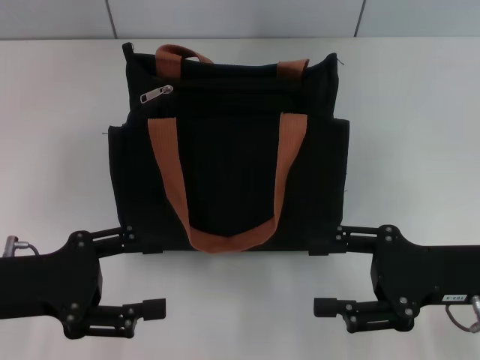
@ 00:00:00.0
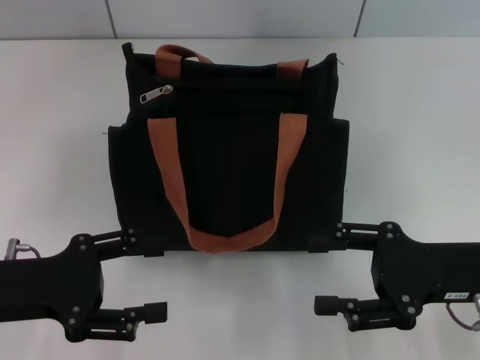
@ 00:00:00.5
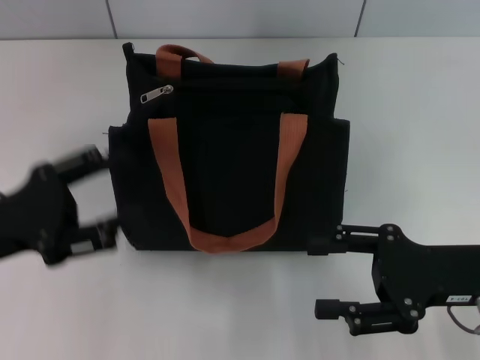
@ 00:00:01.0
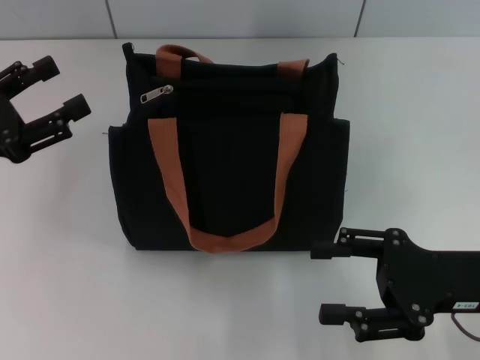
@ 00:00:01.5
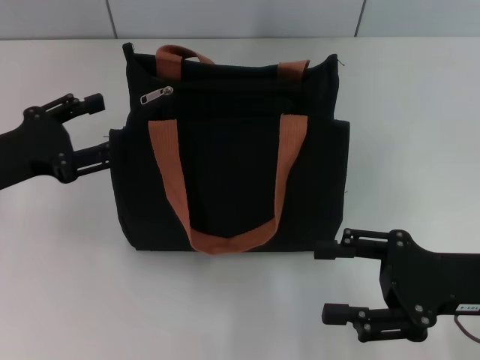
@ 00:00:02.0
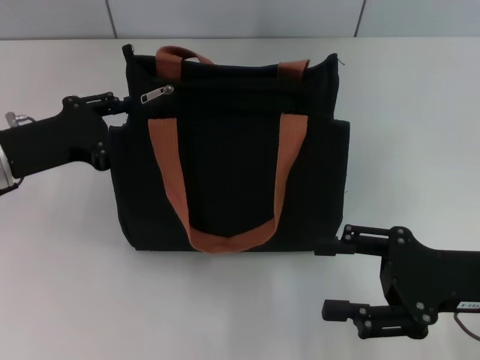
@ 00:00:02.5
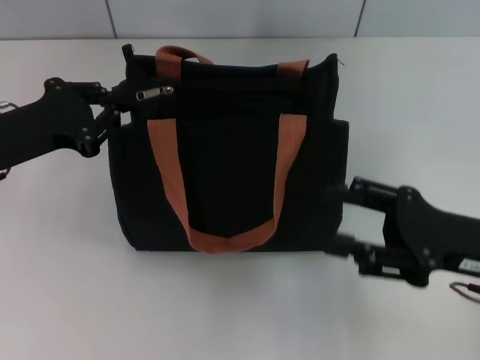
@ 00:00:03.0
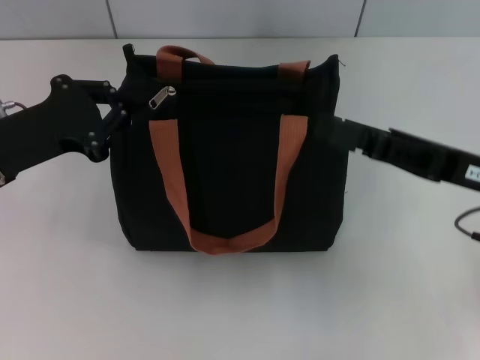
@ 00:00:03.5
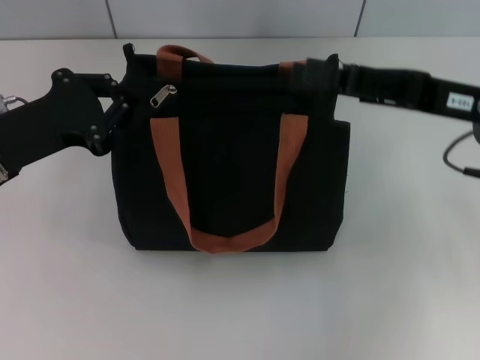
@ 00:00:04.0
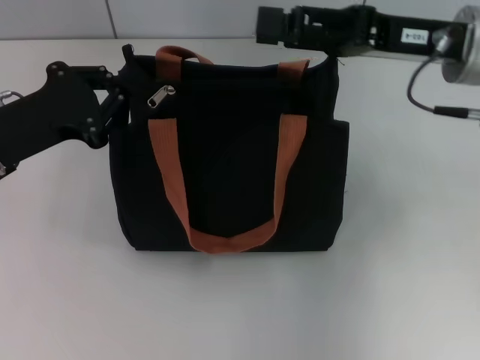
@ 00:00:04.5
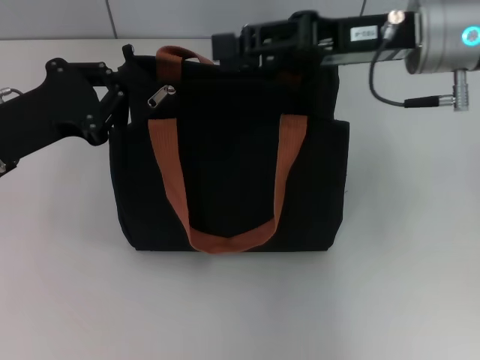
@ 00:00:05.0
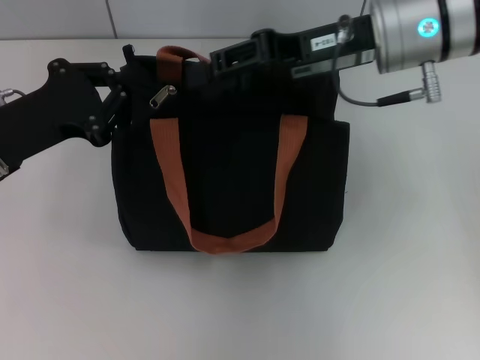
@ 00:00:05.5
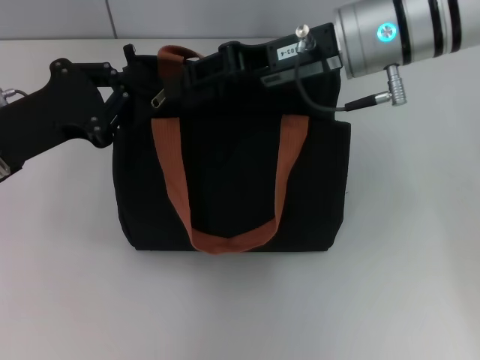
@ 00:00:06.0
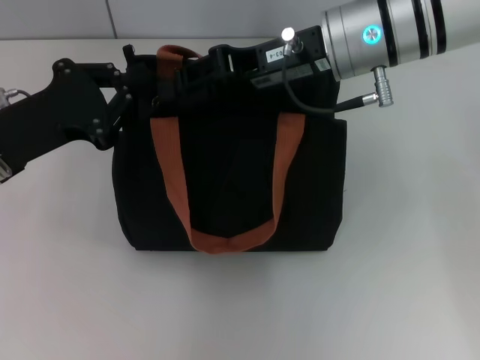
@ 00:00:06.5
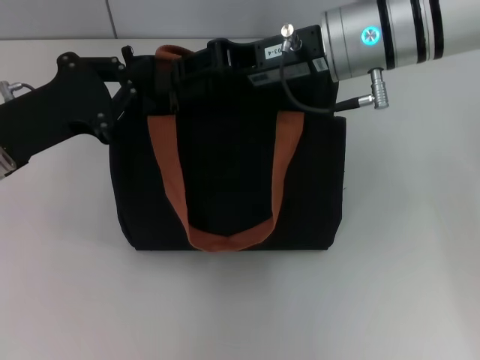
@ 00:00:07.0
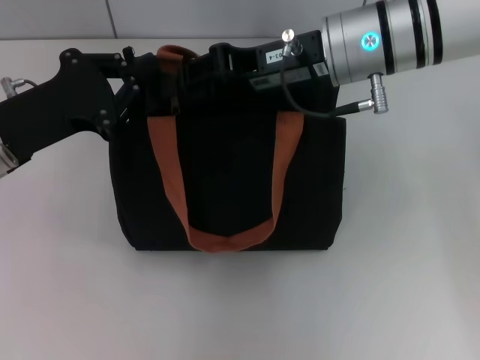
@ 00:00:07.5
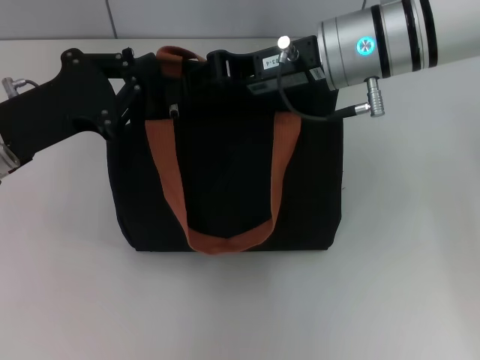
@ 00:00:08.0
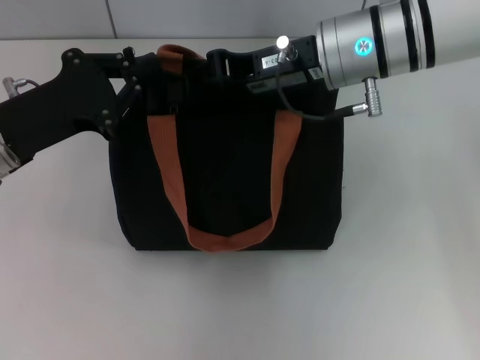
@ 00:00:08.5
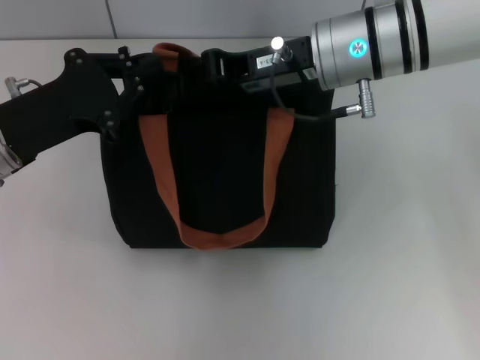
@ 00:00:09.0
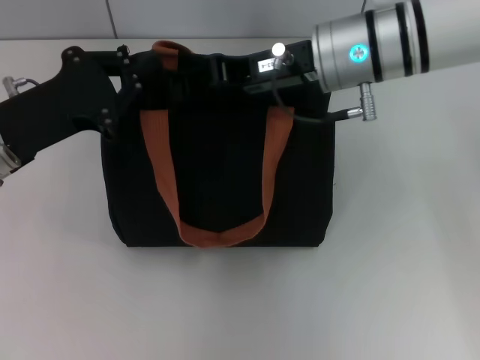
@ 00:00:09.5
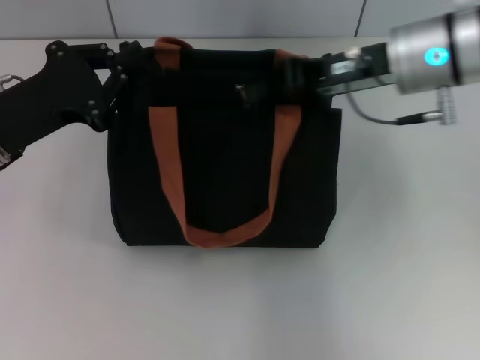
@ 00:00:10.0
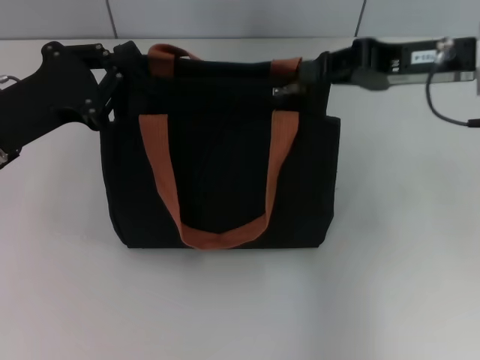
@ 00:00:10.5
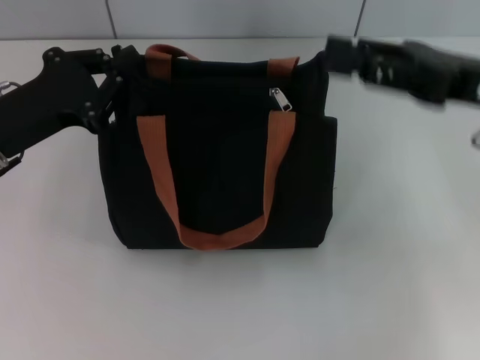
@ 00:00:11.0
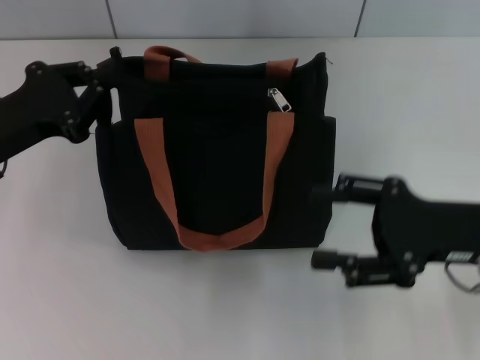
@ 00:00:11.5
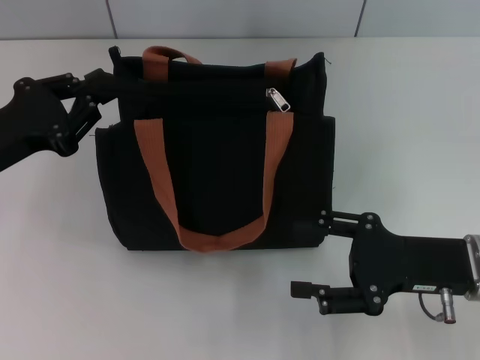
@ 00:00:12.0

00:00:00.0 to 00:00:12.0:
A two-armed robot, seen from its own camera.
Step, 00:00:00.0 to 00:00:10.5: Pull up the zipper with your right hand.
00:00:00.0 to 00:00:02.0: The left gripper moves forward, roughly 5 cm.
00:00:02.0 to 00:00:04.0: The right gripper is displaced forward and upward by approximately 15 cm; the left gripper closes up.
00:00:04.0 to 00:00:06.0: The right gripper moves to the left and forward, about 15 cm, and closes up.
00:00:06.0 to 00:00:08.0: The grippers stay close to where they were, moving slightly.
00:00:08.0 to 00:00:10.0: The right gripper is displaced to the right by roughly 5 cm.
00:00:10.0 to 00:00:12.0: The right gripper goes about 20 cm backward, downward and to the right, and opens.

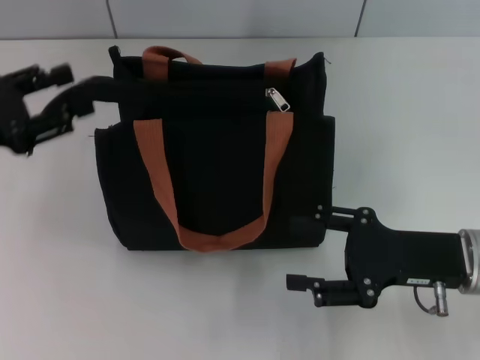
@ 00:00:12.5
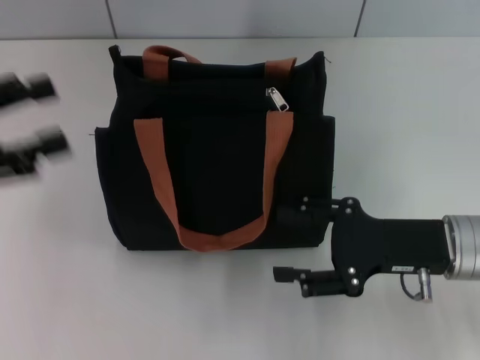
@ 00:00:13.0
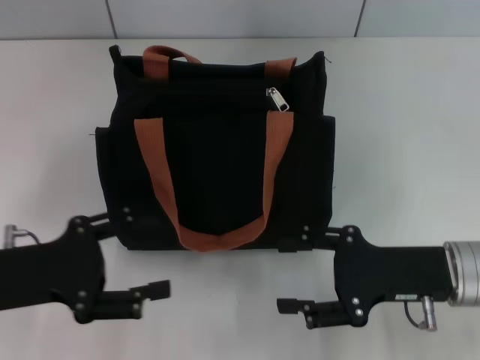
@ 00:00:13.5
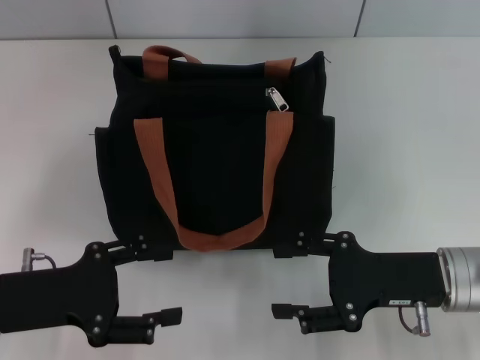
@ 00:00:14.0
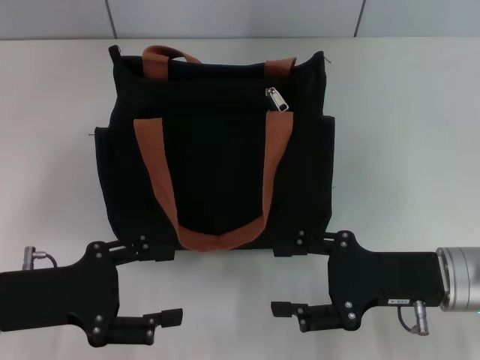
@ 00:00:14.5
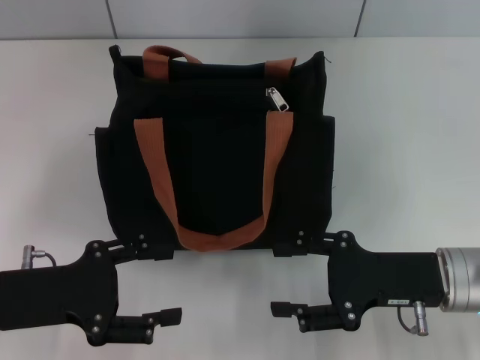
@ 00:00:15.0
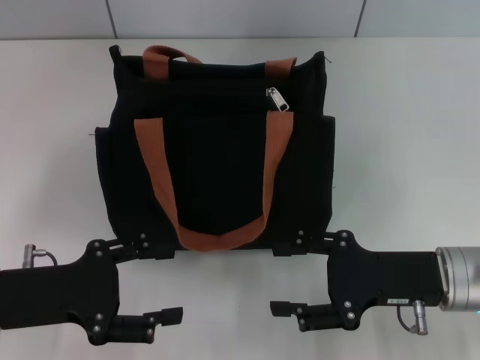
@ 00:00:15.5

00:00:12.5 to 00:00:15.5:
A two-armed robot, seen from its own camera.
00:00:12.5 to 00:00:14.0: The left gripper is displaced backward, downward and to the right by about 15 cm, and opens up.
00:00:14.0 to 00:00:15.5: Both grippers stay about where they are.

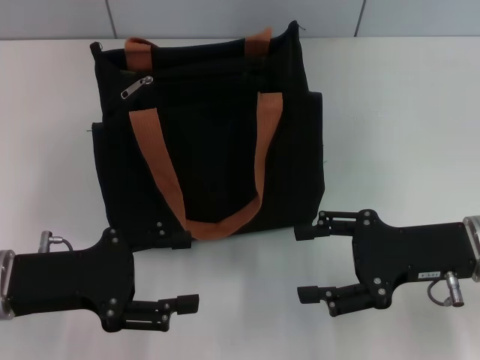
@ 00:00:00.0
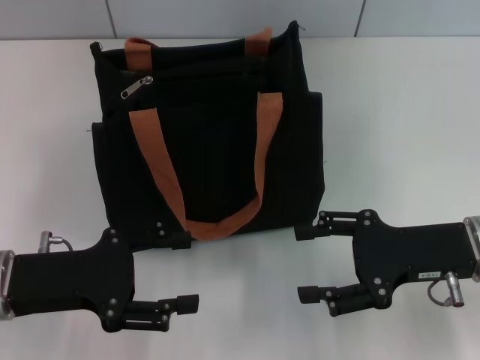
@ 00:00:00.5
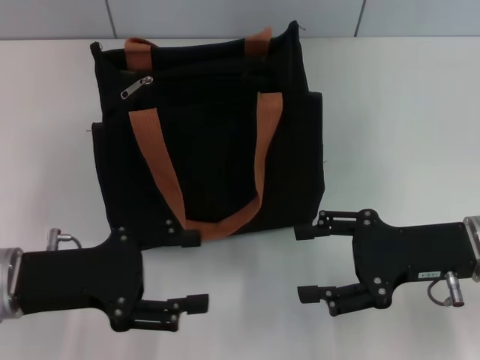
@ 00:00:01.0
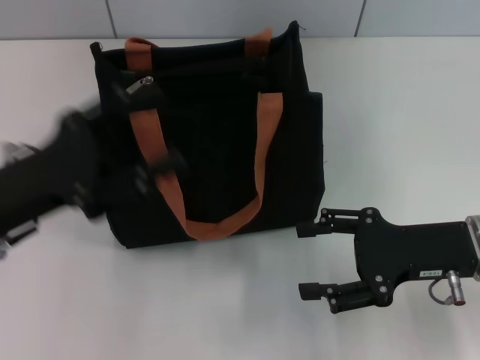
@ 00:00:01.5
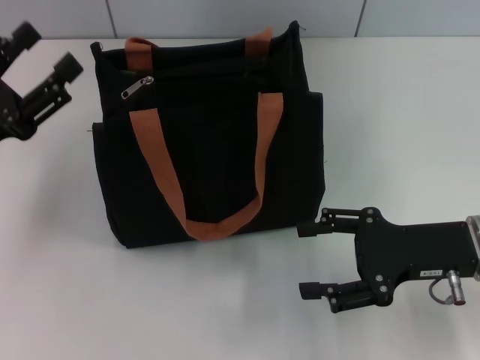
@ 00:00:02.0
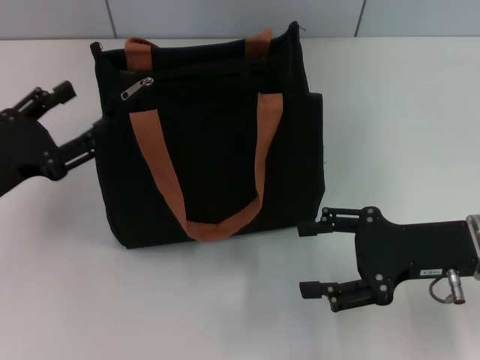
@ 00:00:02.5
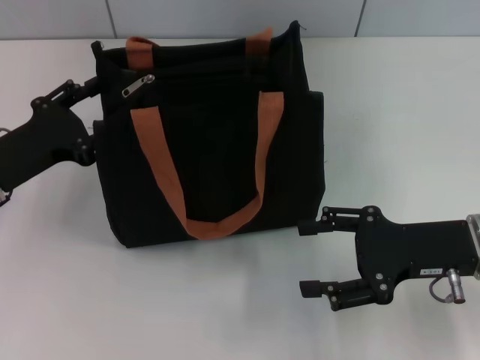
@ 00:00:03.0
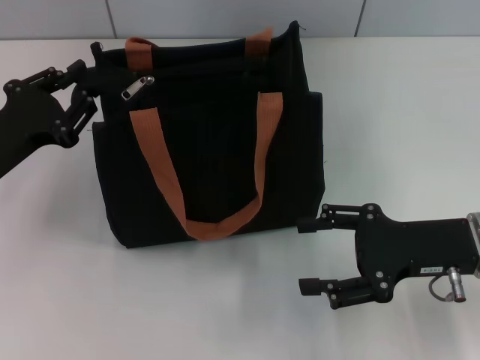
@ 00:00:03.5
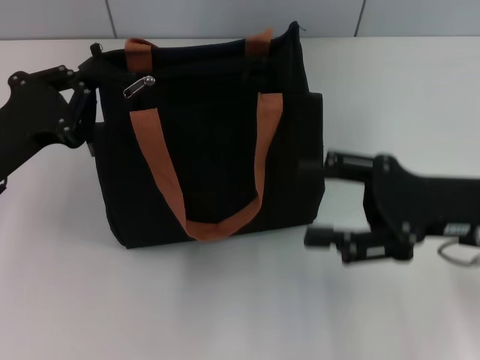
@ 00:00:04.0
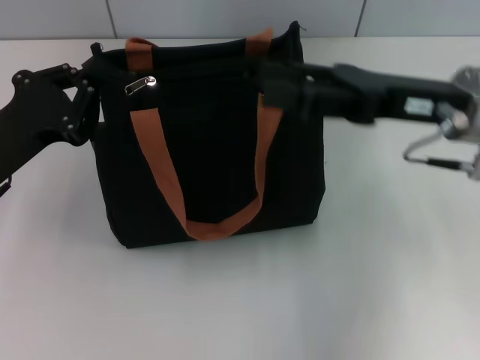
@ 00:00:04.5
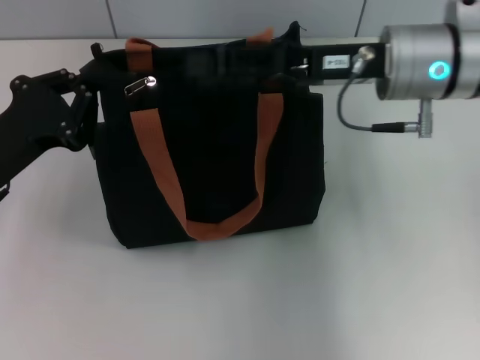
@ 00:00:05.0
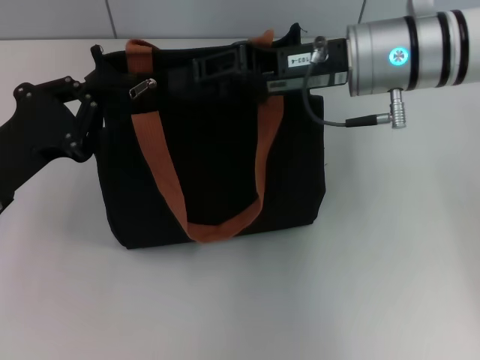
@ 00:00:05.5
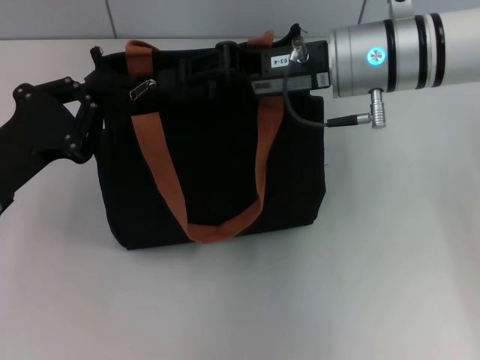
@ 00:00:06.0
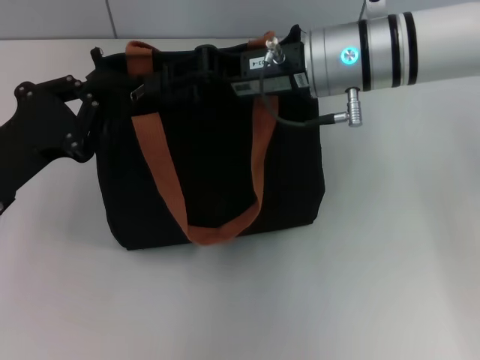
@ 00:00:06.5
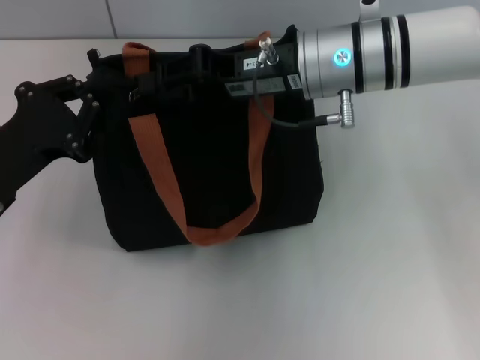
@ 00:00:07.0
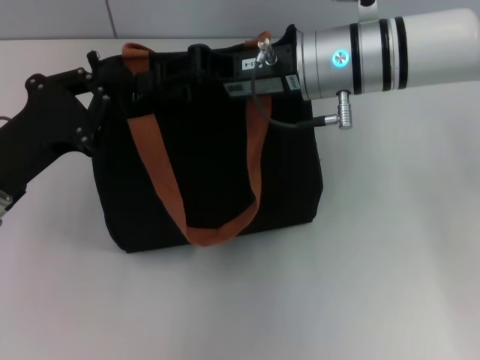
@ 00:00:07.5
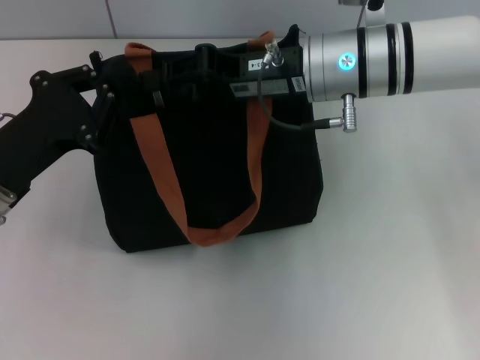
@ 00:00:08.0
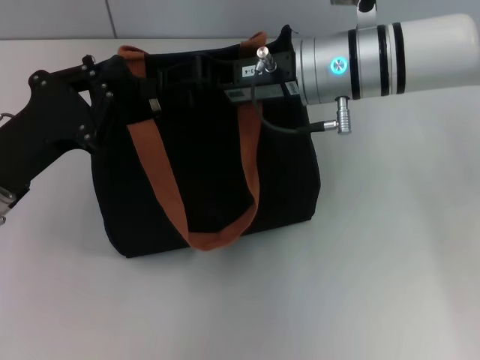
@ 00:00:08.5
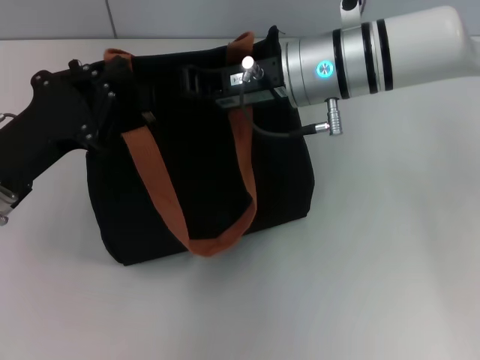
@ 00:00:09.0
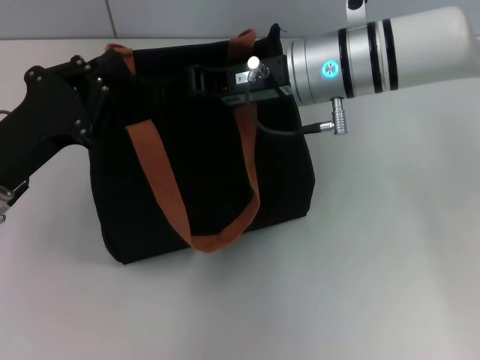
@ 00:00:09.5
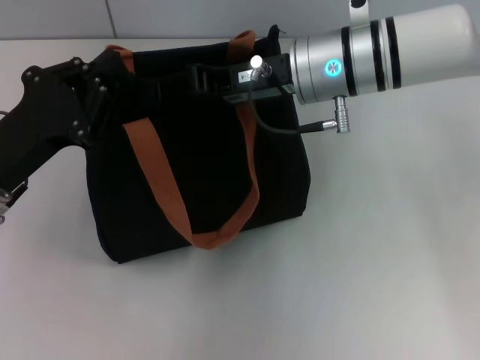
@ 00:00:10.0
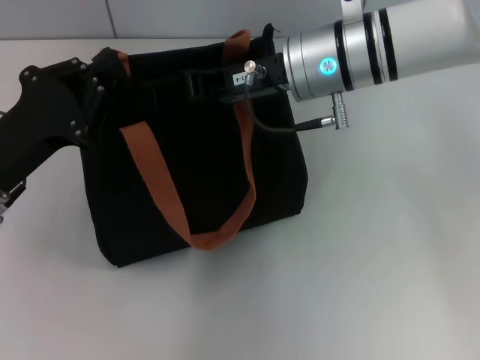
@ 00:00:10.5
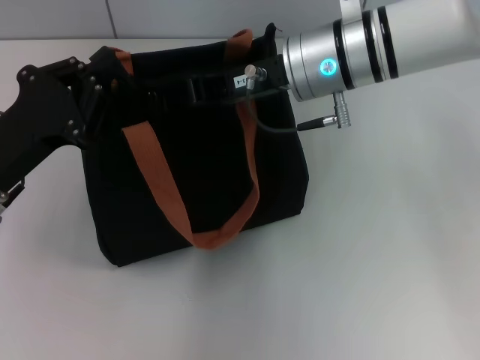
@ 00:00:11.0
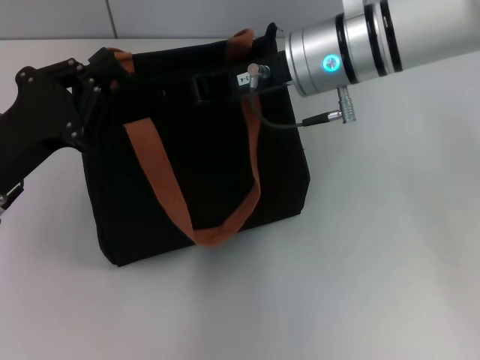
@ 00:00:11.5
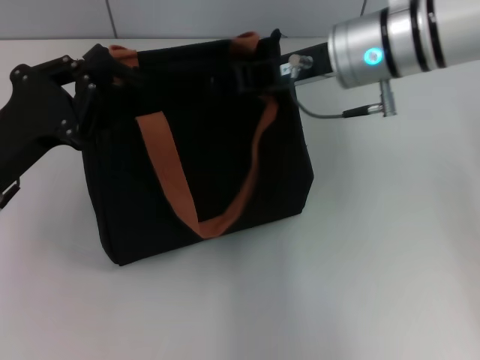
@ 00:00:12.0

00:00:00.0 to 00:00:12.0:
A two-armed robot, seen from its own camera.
00:00:00.0 to 00:00:02.0: The left gripper changes place by some 5 cm.
00:00:02.0 to 00:00:04.0: The left gripper closes.
00:00:04.0 to 00:00:06.0: The right gripper heads to the left, forward and upward, covering approximately 20 cm, and closes.
00:00:06.0 to 00:00:10.0: The grippers make only small movements.
00:00:10.0 to 00:00:12.0: The grippers move only a little.
